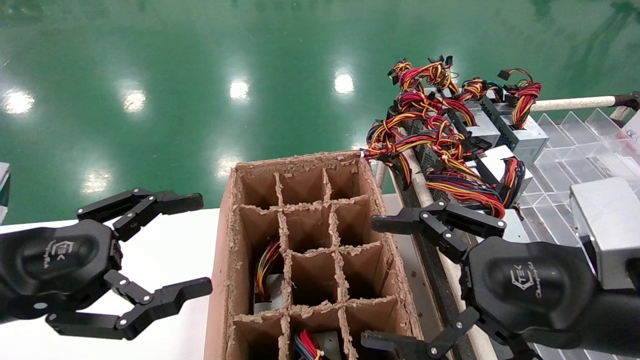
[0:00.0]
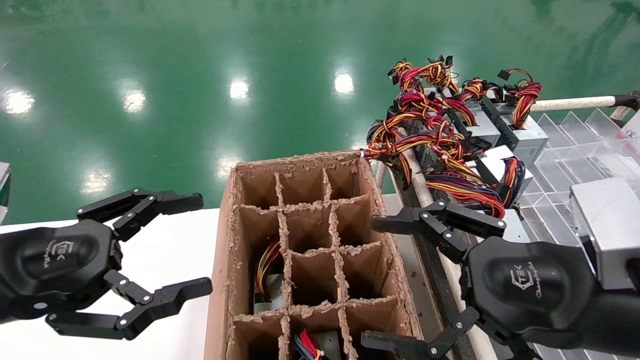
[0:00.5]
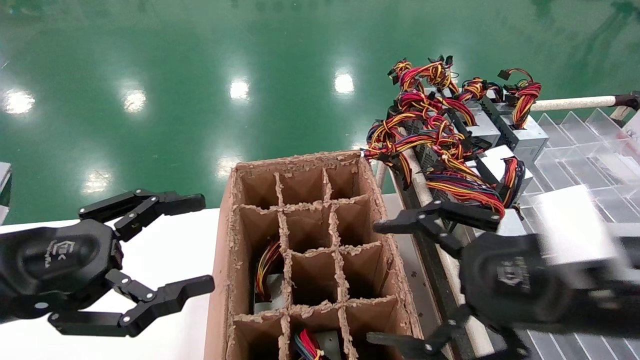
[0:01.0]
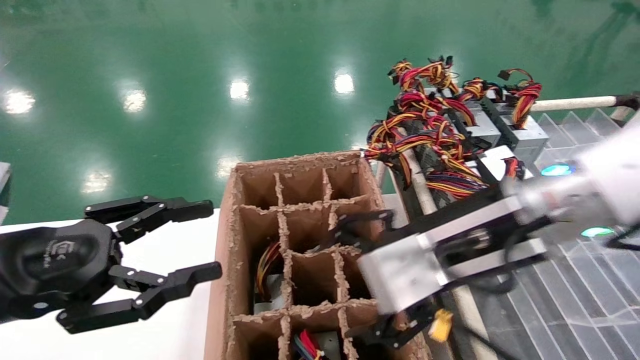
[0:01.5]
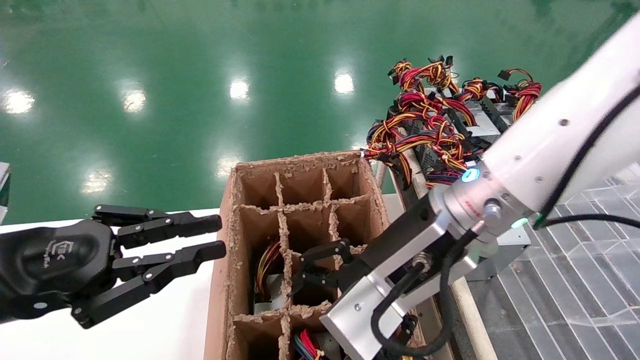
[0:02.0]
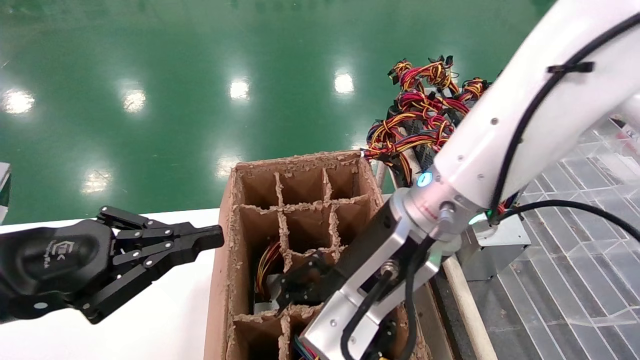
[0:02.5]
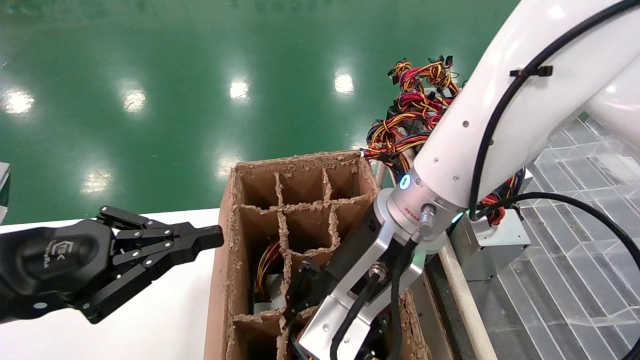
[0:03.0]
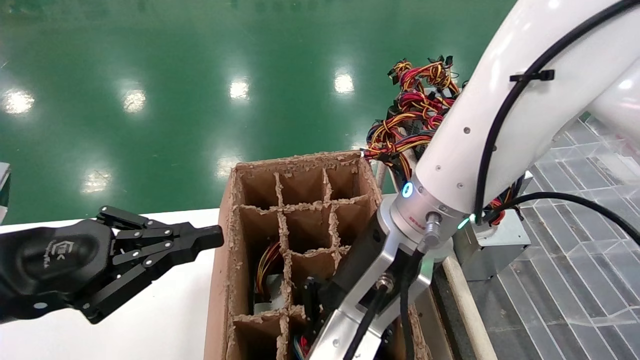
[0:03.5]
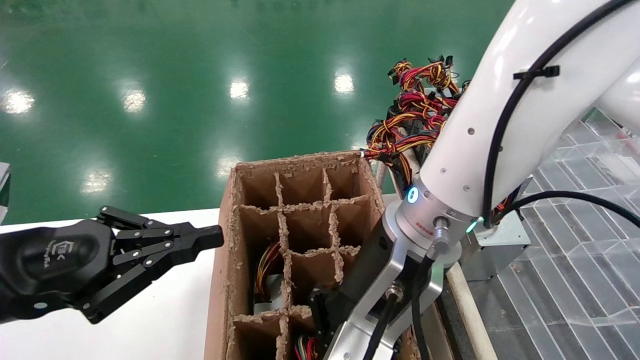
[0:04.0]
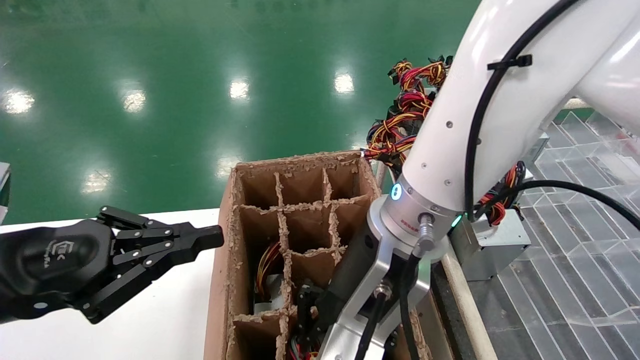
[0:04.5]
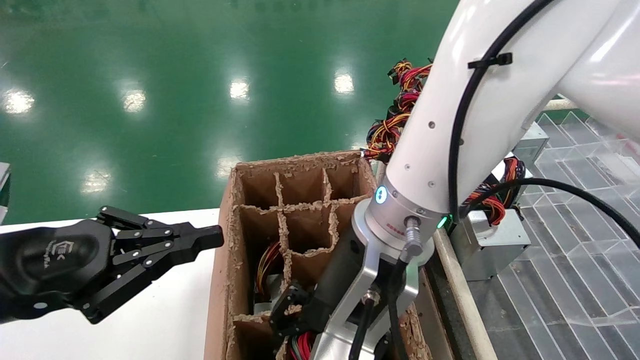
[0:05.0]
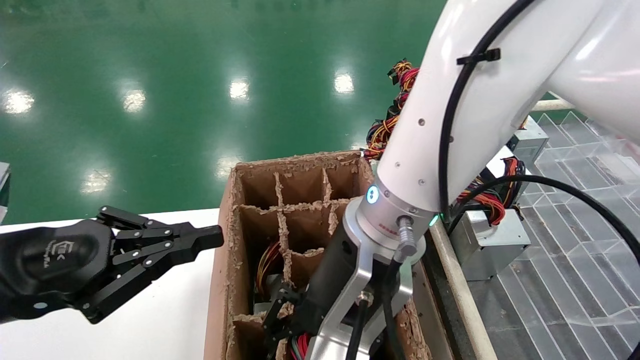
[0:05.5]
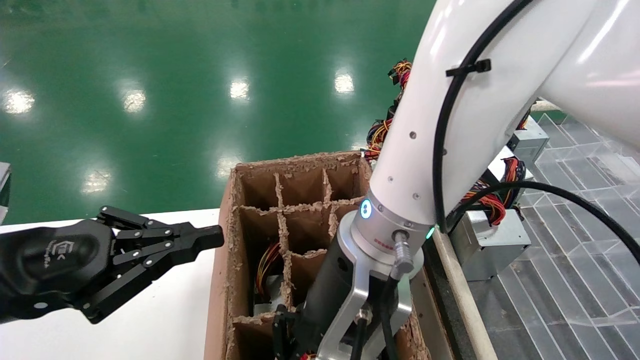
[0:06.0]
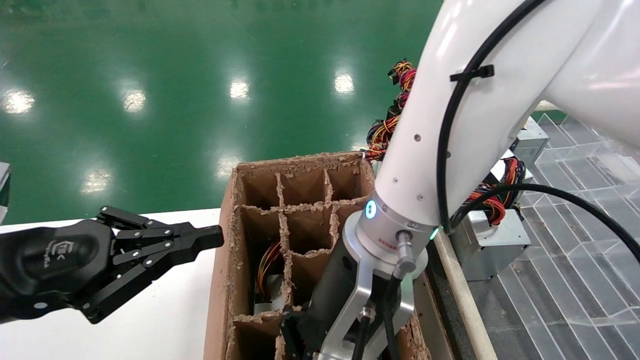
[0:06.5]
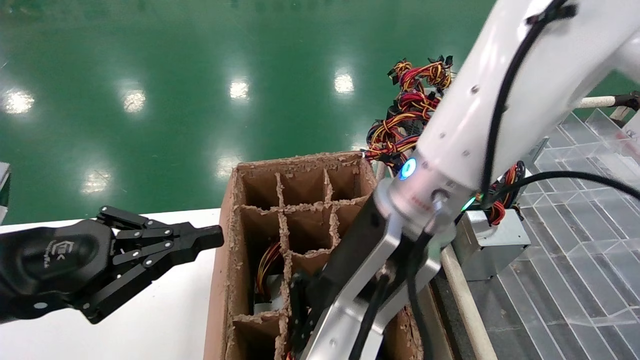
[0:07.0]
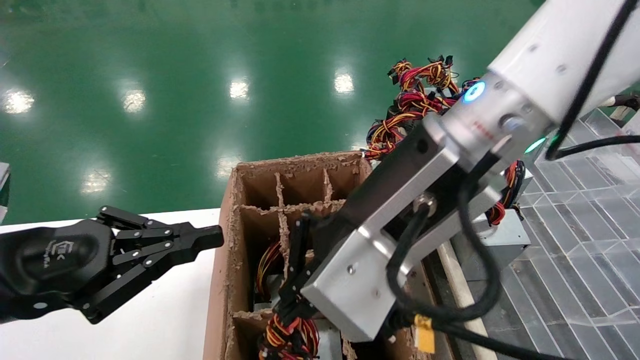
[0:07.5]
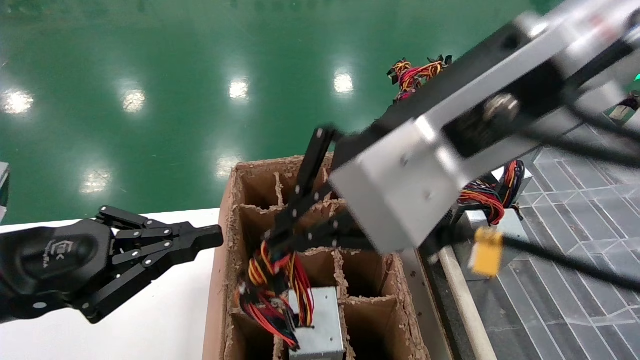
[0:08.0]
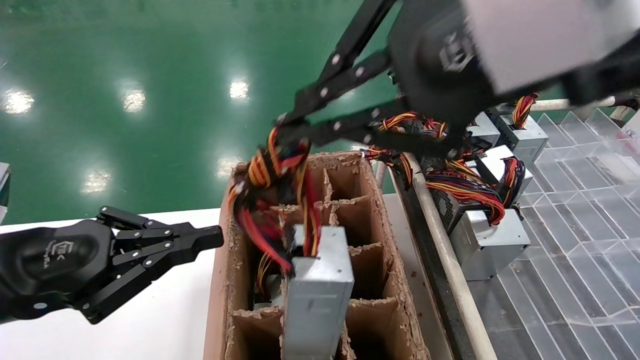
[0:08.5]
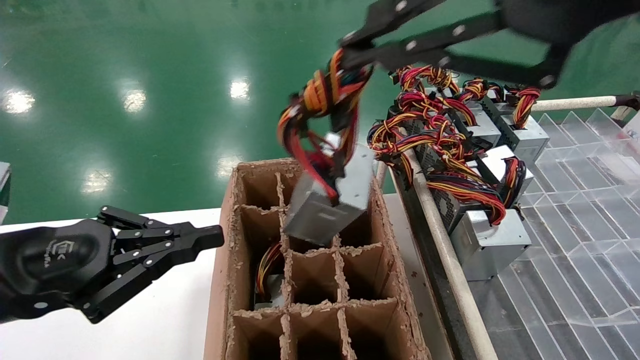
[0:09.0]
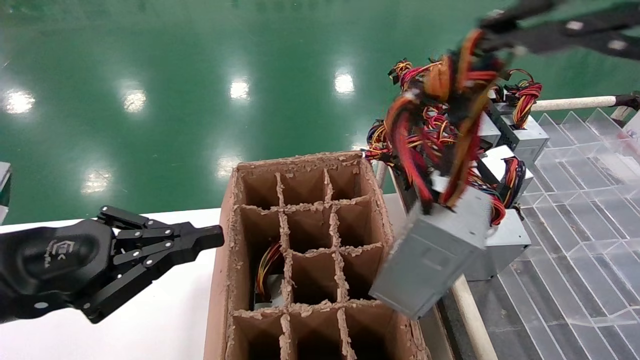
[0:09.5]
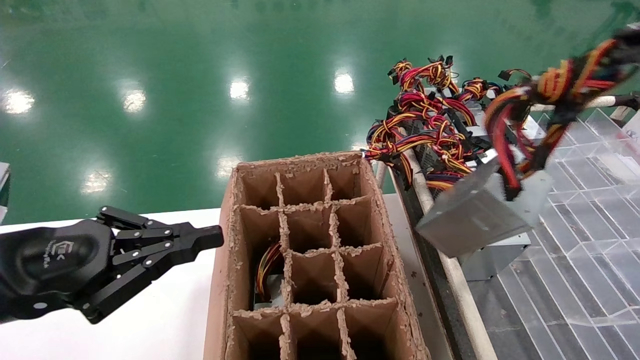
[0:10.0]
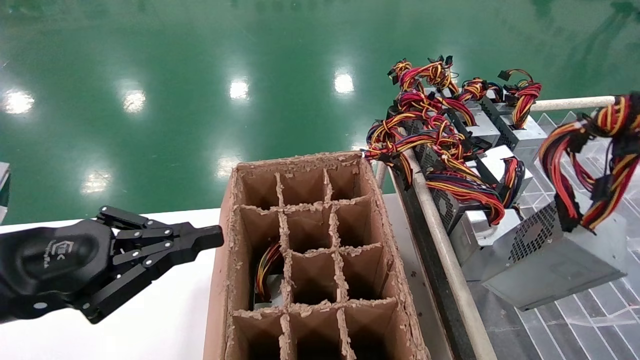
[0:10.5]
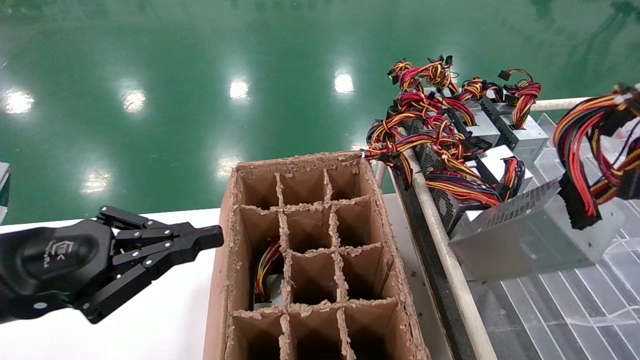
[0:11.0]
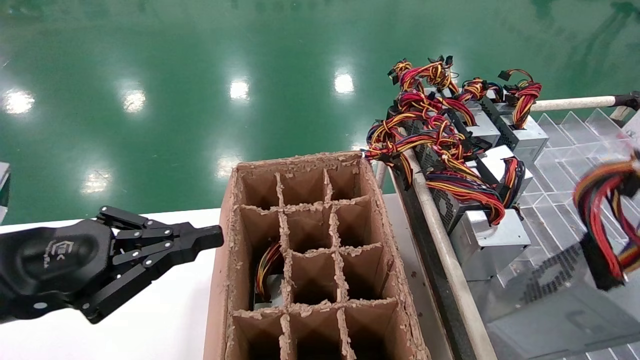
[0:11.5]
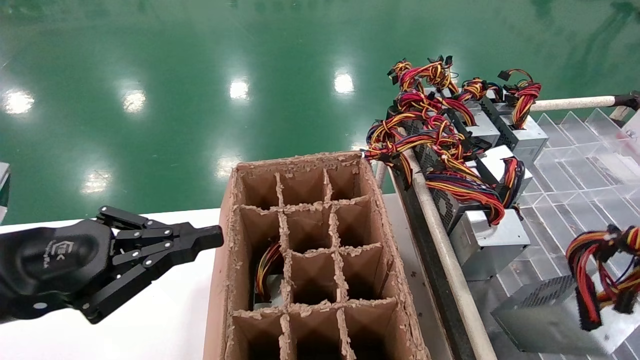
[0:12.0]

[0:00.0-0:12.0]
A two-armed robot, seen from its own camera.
Step, 0:01.5 to 0:06.5: Grab the main unit power supply from the containment box.
0:00.0 to 0:02.0: The left gripper closes. Meanwhile the right gripper moves to the left and forward, approximately 15 cm.
0:02.0 to 0:04.0: The right gripper closes its fingers.
0:06.0 to 0:08.0: The right gripper heads upward and to the right, covering roughly 15 cm.
0:08.0 to 0:10.0: The right gripper is displaced to the right and backward by about 25 cm.
0:10.0 to 0:12.0: The right gripper travels downward and to the right by roughly 20 cm.

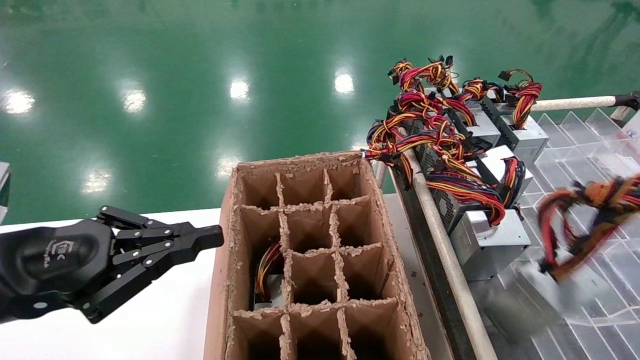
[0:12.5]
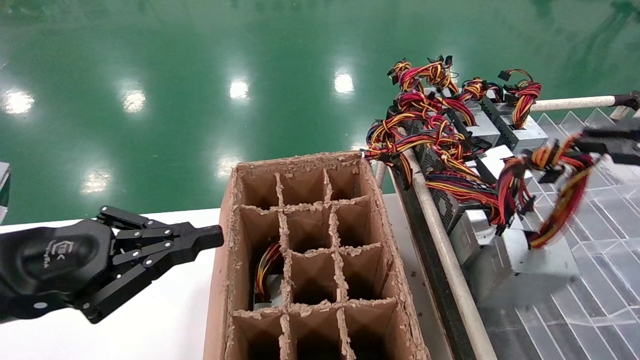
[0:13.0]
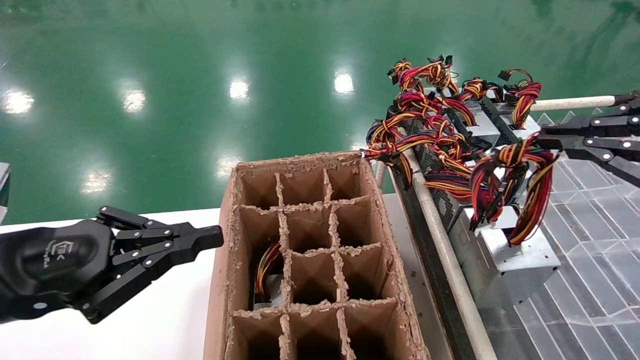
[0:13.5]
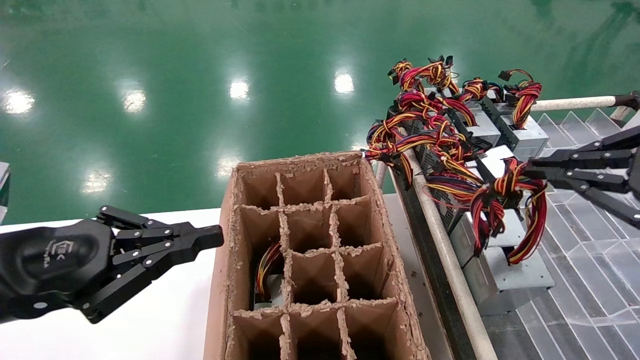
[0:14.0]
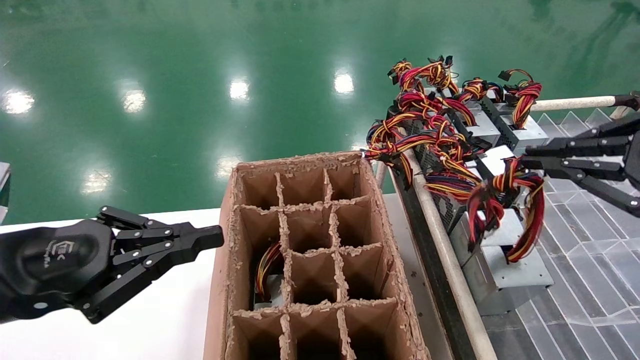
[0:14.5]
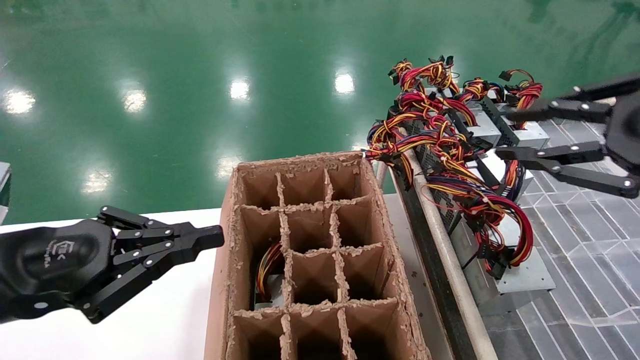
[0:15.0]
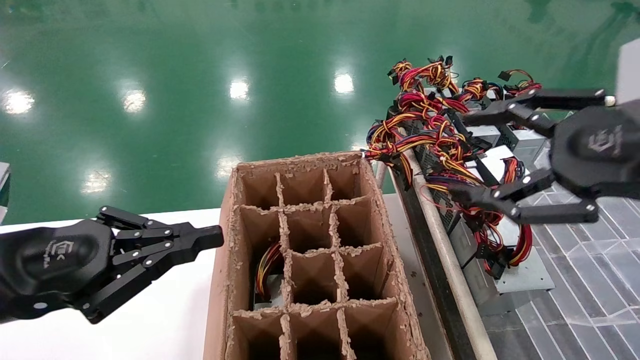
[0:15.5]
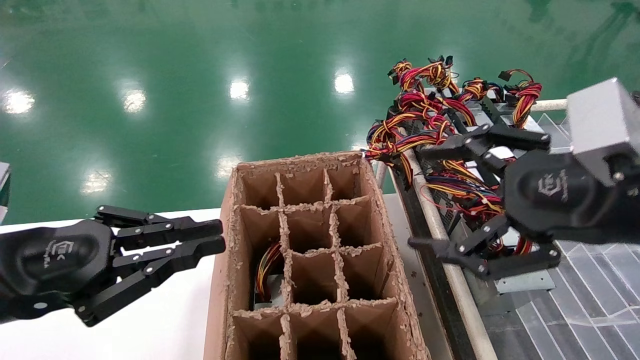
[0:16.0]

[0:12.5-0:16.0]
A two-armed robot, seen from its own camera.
Step, 0:12.5 to 0:14.5: Place the main unit power supply in the designated area.
0:12.5 to 0:14.5: The right gripper moves forward and to the left, approximately 10 cm.
0:14.5 to 0:16.0: The right gripper heads to the left, covering about 10 cm, and opens its fingers.
